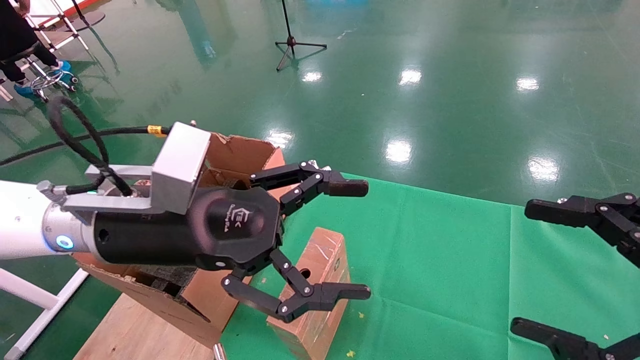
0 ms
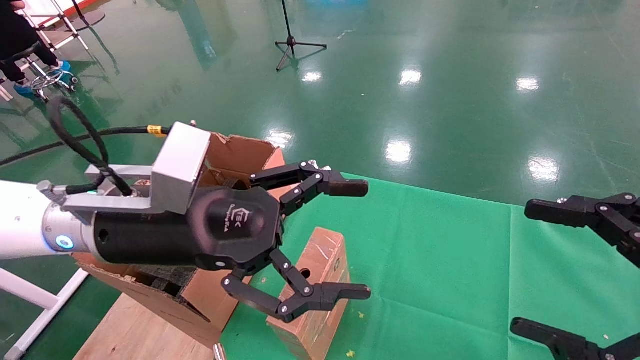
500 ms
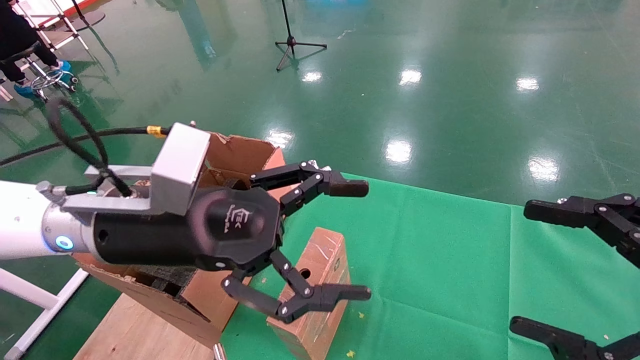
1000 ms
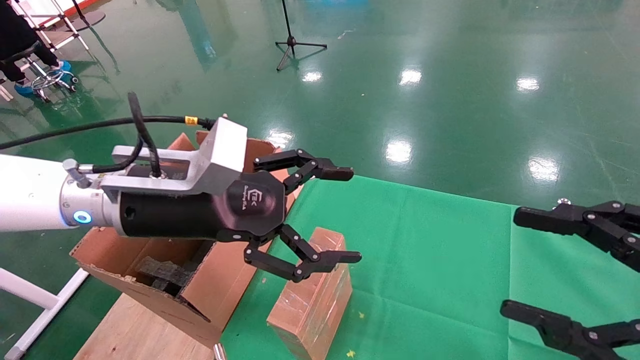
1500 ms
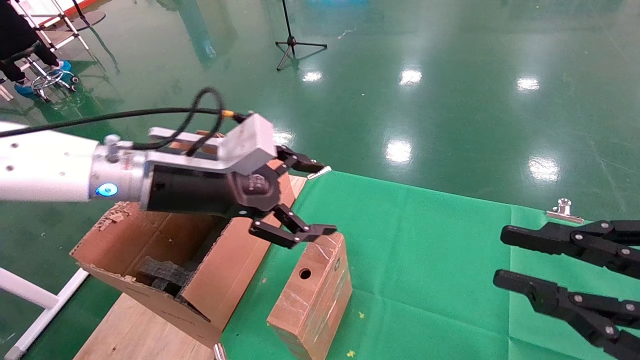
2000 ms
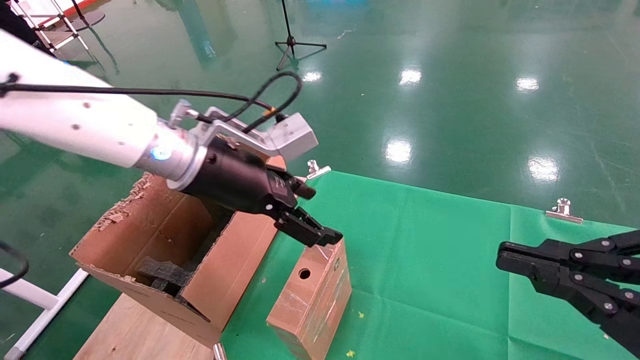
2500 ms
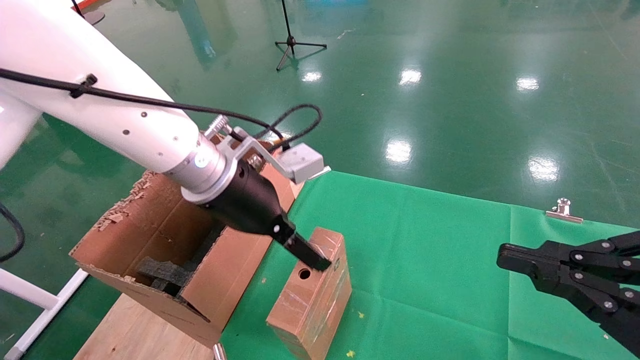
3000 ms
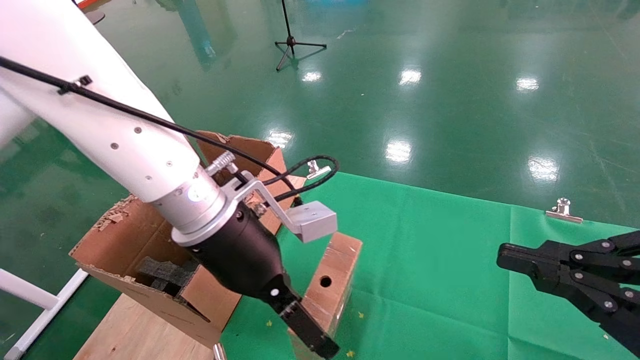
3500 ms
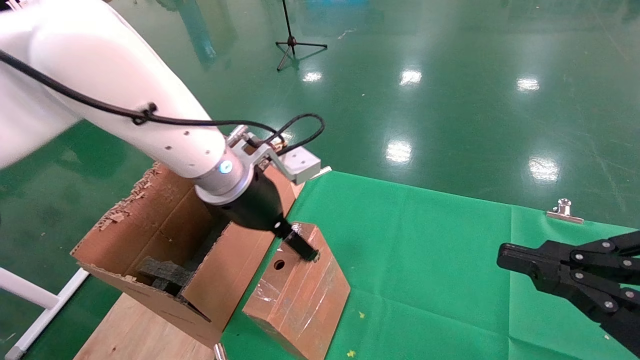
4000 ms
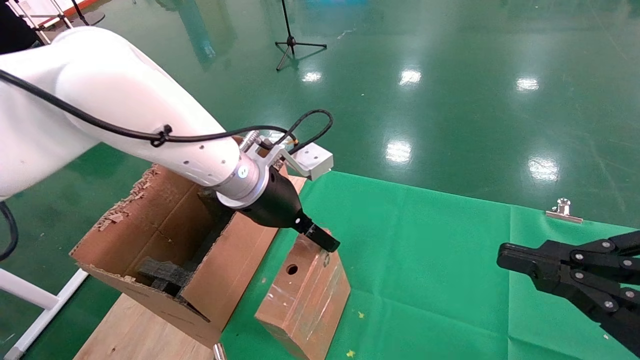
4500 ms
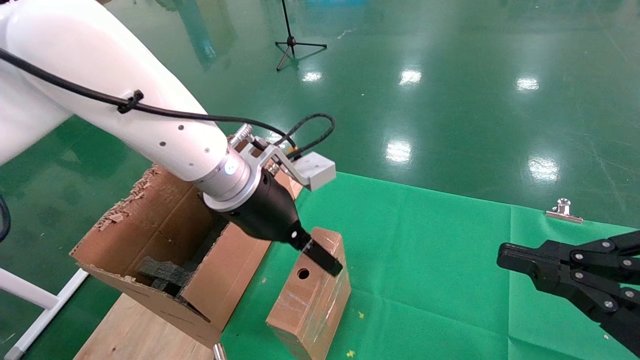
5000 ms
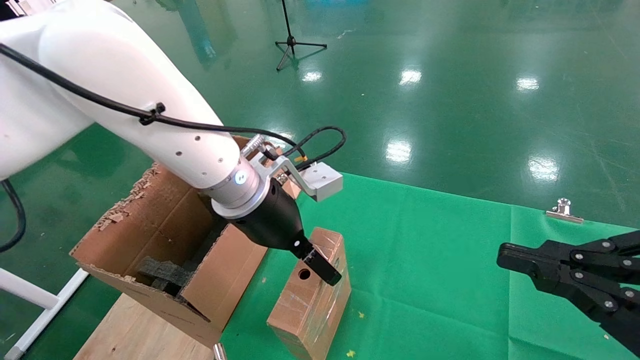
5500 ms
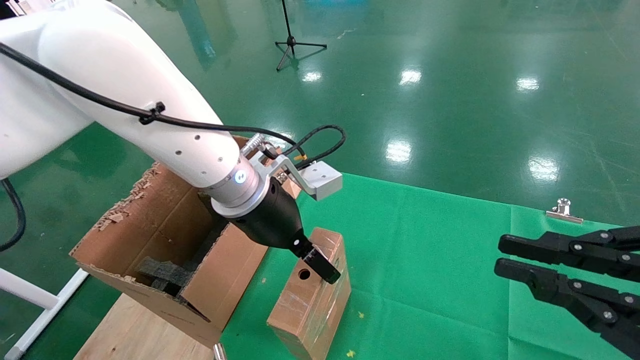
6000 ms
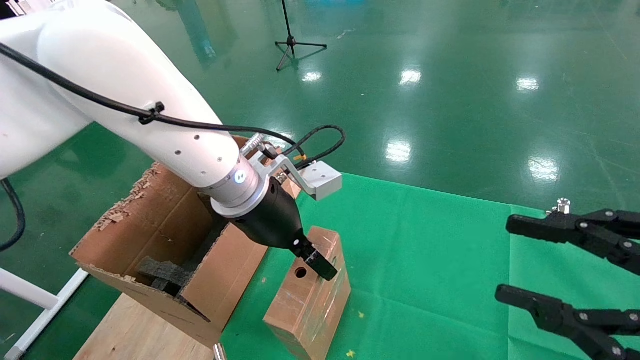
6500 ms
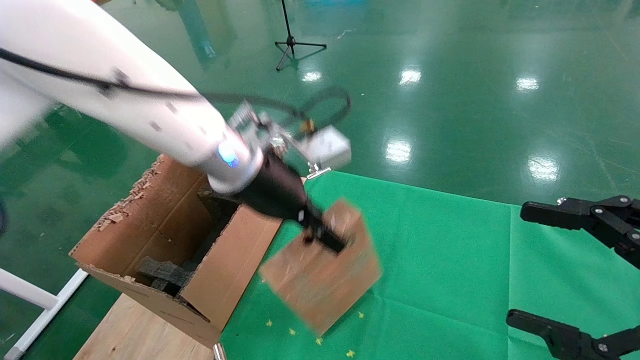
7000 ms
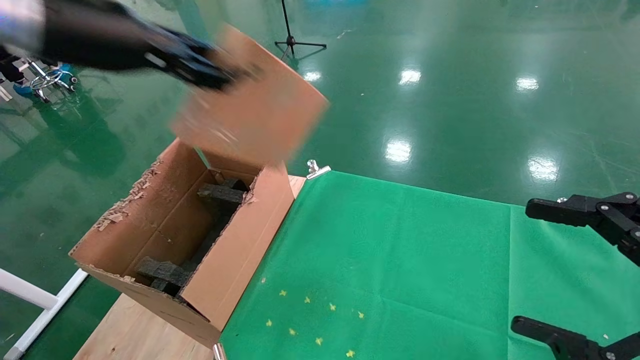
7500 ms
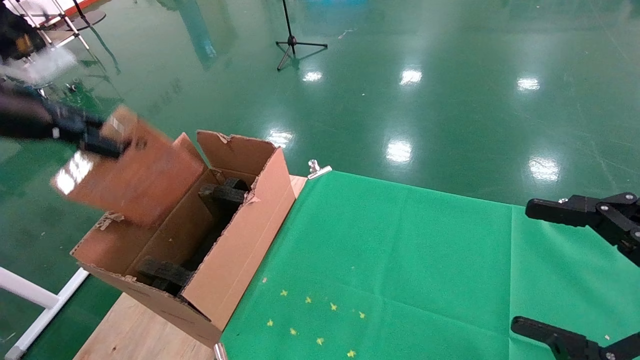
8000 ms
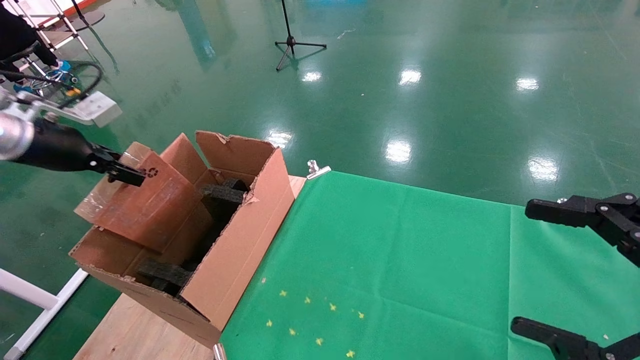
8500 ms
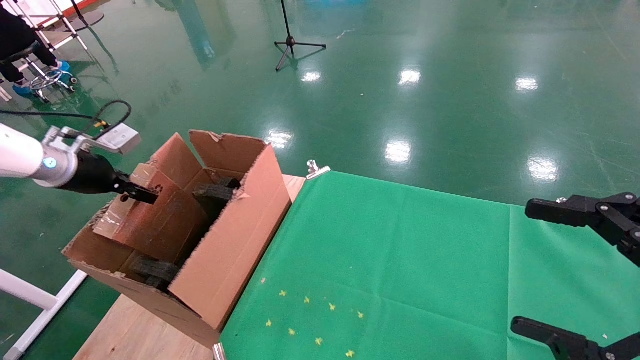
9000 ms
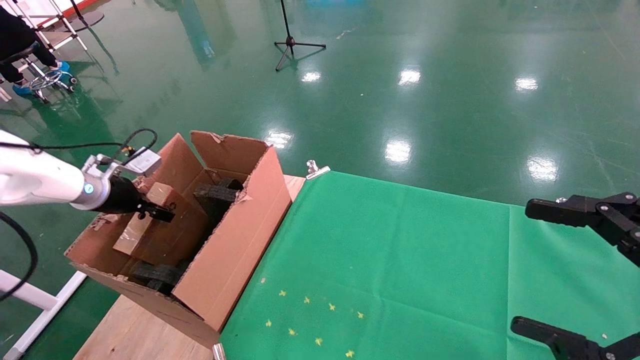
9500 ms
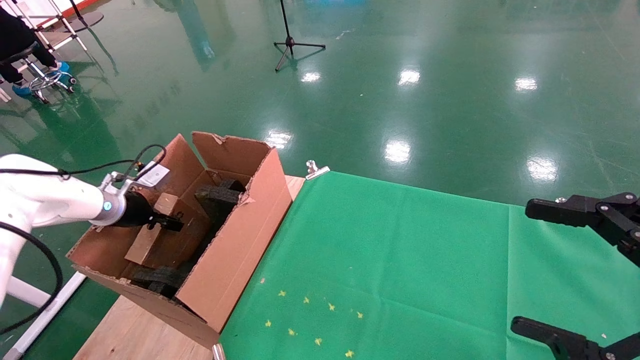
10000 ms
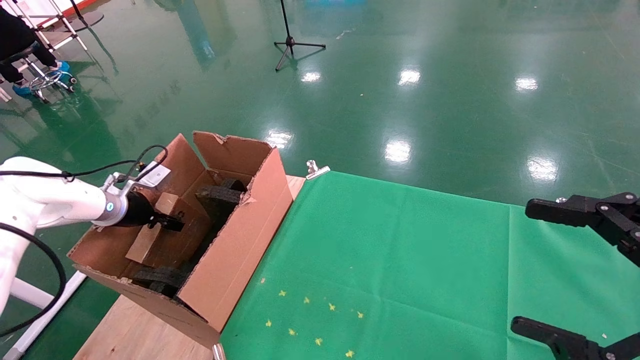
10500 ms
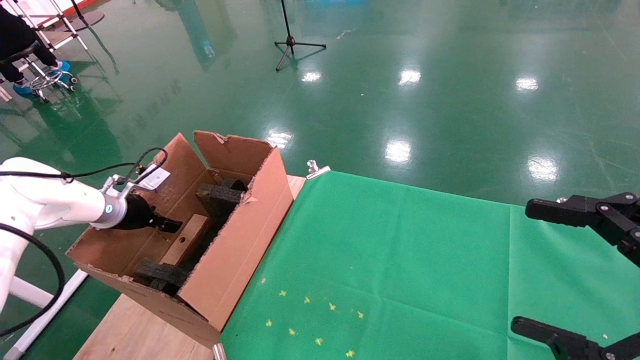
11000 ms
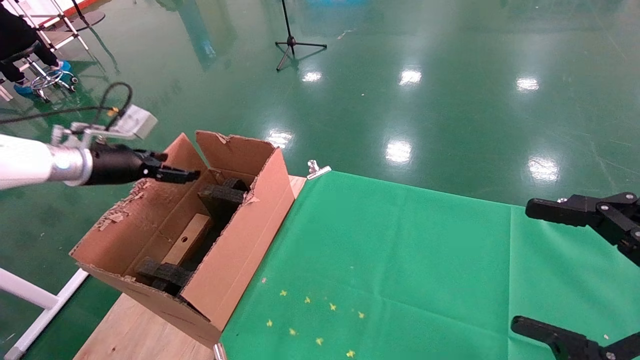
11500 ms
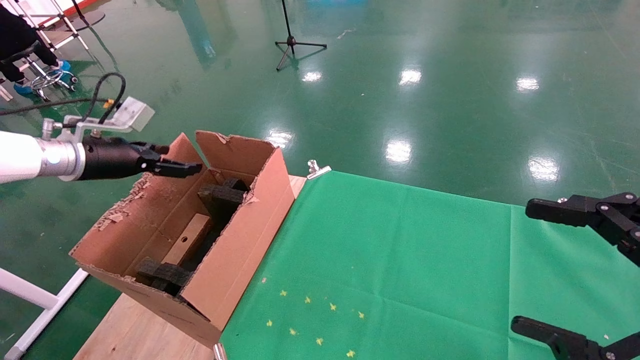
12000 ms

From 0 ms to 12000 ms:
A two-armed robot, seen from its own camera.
Task of the whole recording: using a robotic arm to pick up a cardboard box and palace it the carton.
Step, from 1500 ms to 6500 ms: Pick up the mouse and the power cord paper box.
Step, from 7000 ms to 11500 ms: Place the mouse and the power cord paper box into the container.
From 0 ms to 2000 ms: The right gripper closes up. Meanwhile the left gripper goes approximately 5 cm forward.
From 2000 ms to 4000 ms: The left gripper is displaced to the right and forward by roughly 10 cm. Meanwhile the right gripper closes up.
From 4000 ms to 6000 ms: There are only small adjustments of the grippers.
From 6000 ms to 8000 ms: The right gripper opens up; the left gripper heads to the left, covering about 35 cm, and closes its fingers.
From 8000 ms to 10000 ms: The left gripper goes some 25 cm downward and forward.
From 10000 ms to 12000 ms: The left gripper shifts approximately 10 cm upward, and opens its fingers.

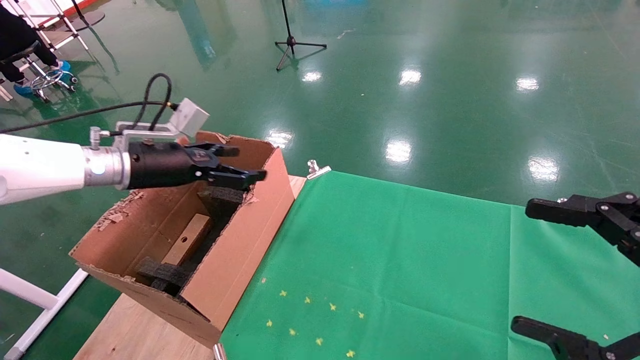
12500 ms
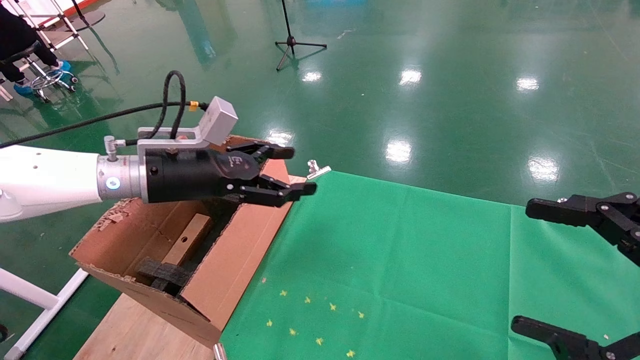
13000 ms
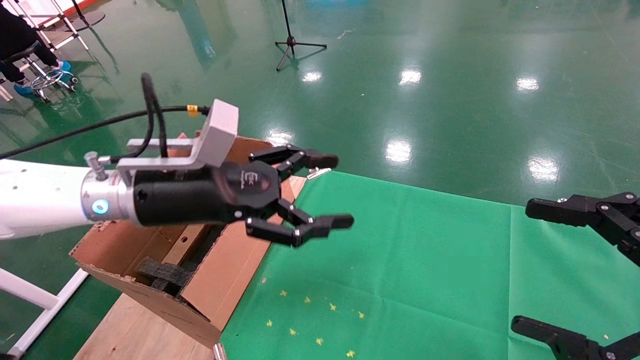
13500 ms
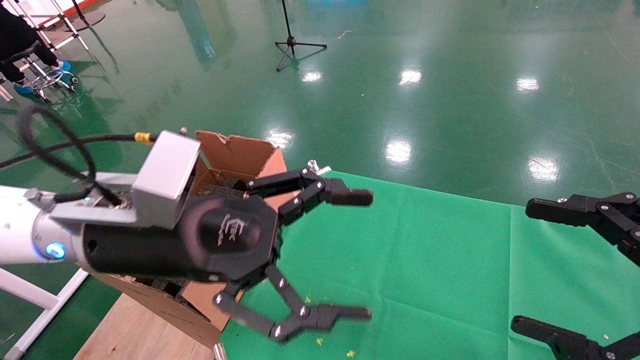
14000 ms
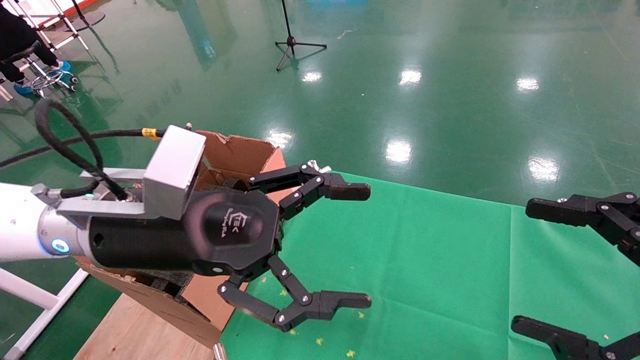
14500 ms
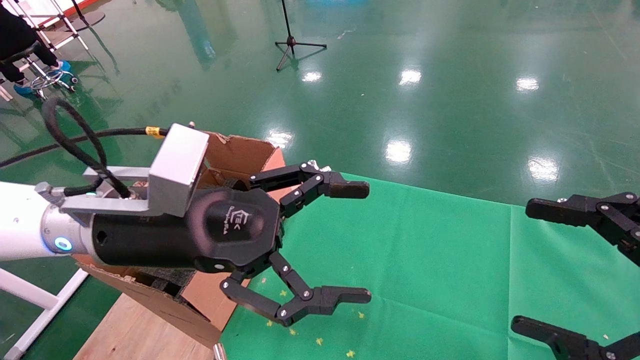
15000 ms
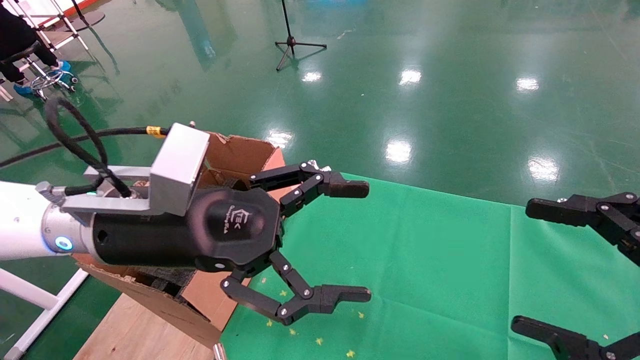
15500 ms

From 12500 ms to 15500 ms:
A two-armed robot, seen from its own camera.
Task of the whole recording: using a robotic arm to pick up a cardboard box and palace it the carton.
From 12500 ms to 14000 ms: The left gripper shifts about 20 cm to the right and backward.
From 14000 ms to 15500 ms: The two grippers keep their place.
